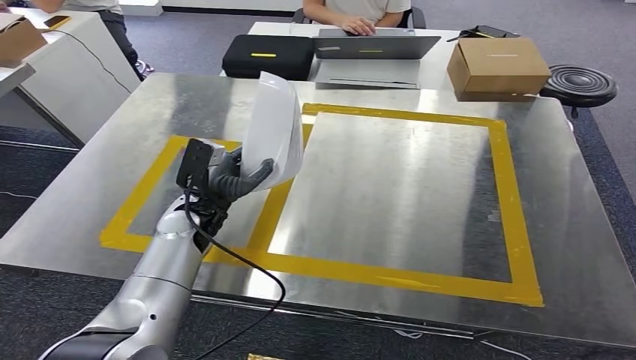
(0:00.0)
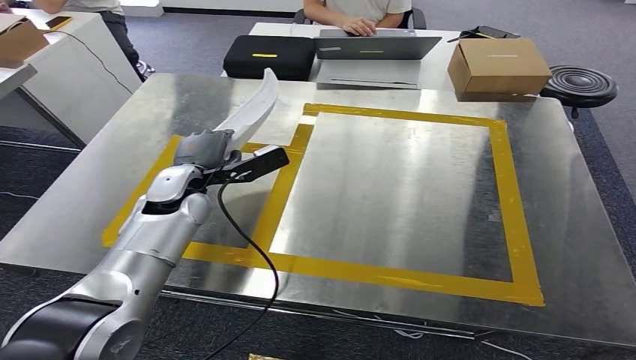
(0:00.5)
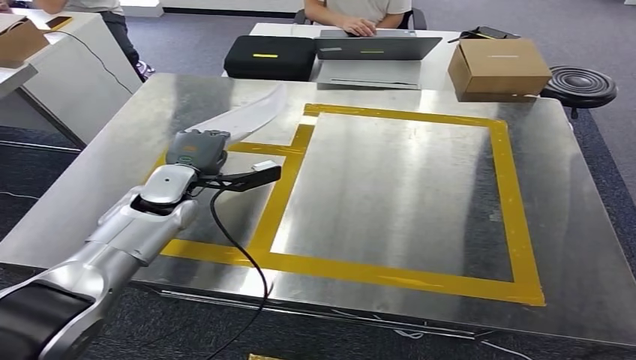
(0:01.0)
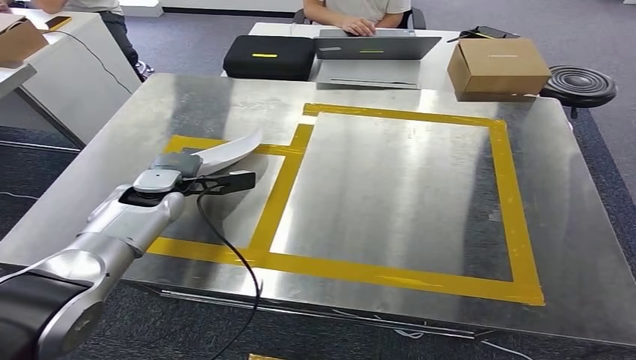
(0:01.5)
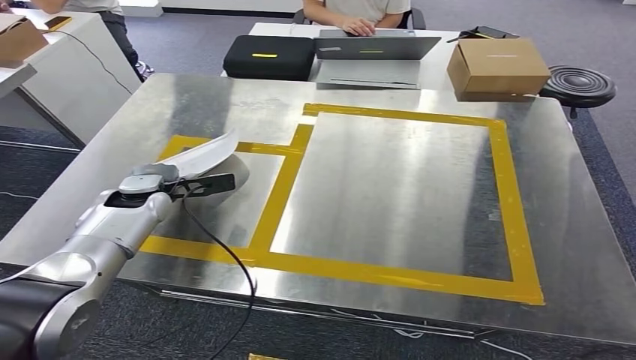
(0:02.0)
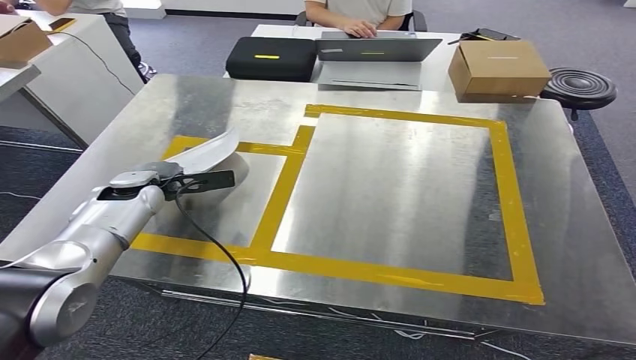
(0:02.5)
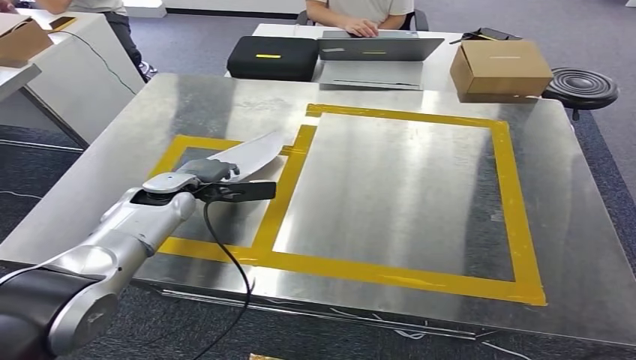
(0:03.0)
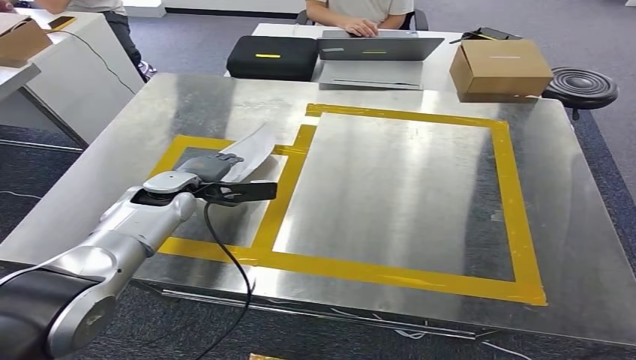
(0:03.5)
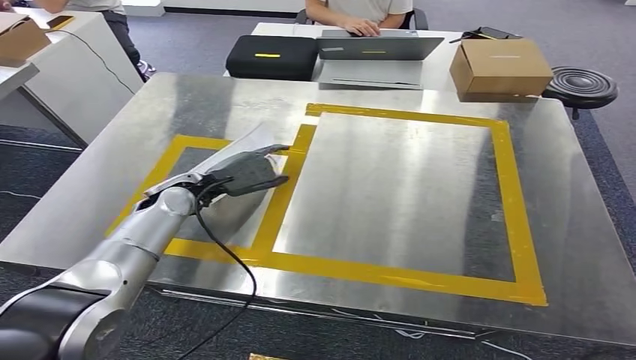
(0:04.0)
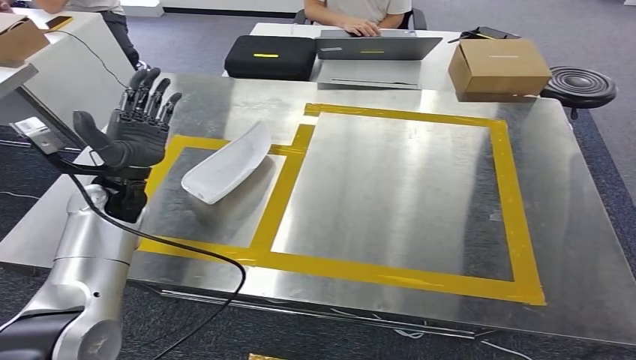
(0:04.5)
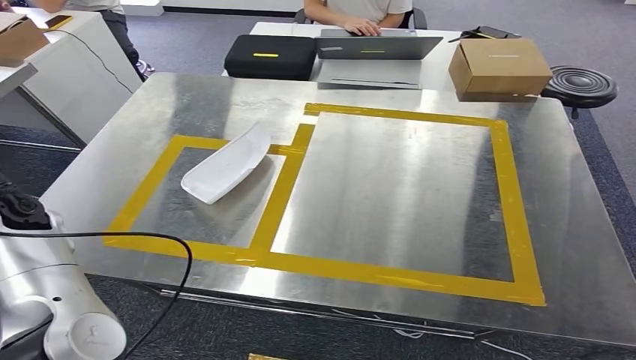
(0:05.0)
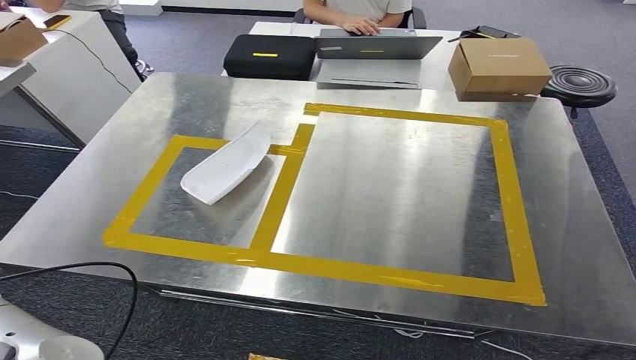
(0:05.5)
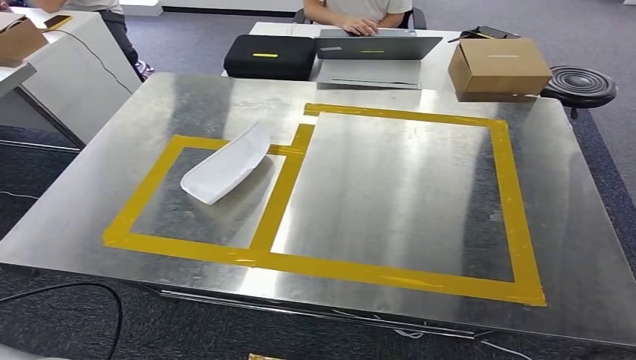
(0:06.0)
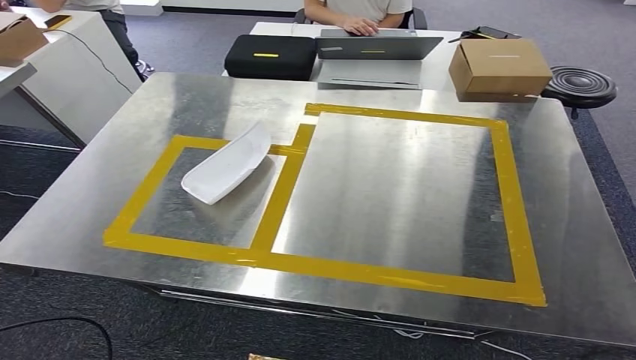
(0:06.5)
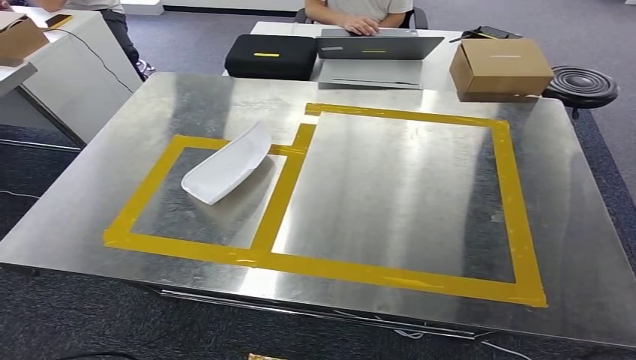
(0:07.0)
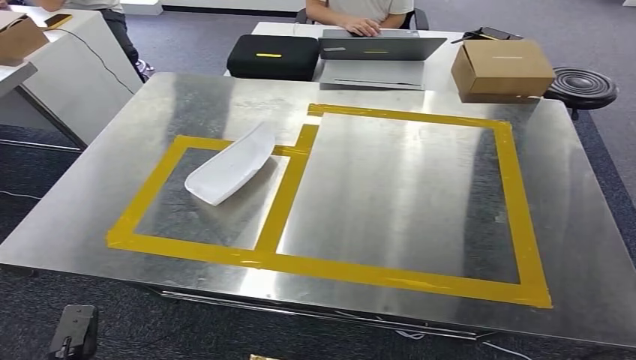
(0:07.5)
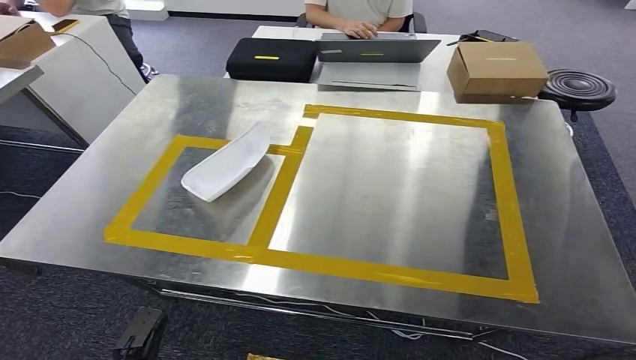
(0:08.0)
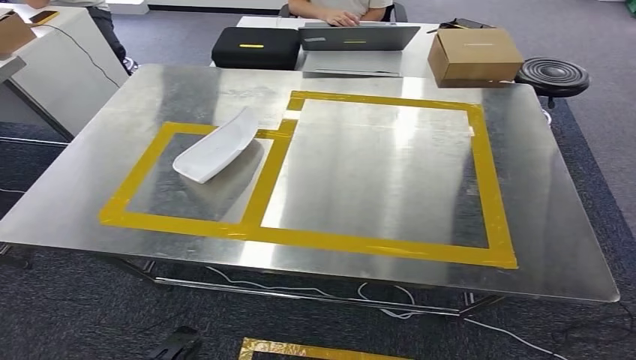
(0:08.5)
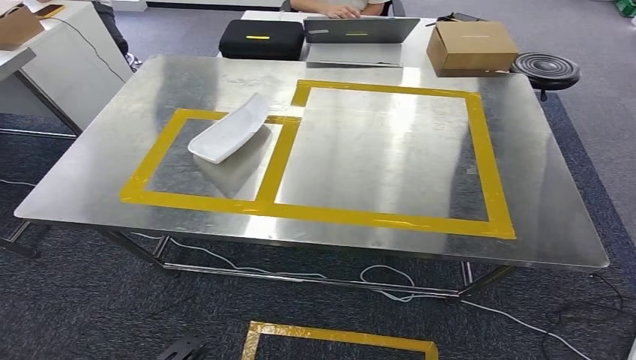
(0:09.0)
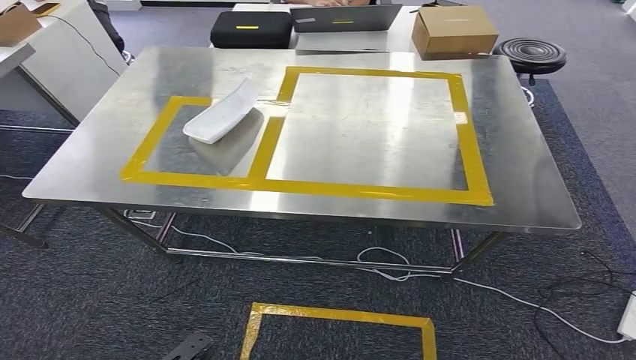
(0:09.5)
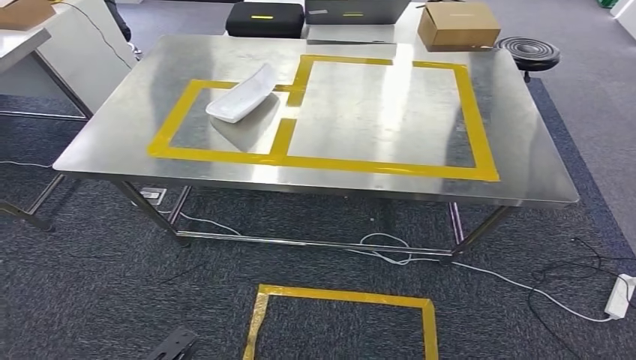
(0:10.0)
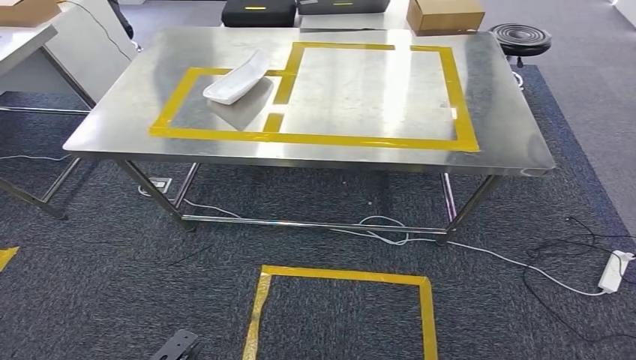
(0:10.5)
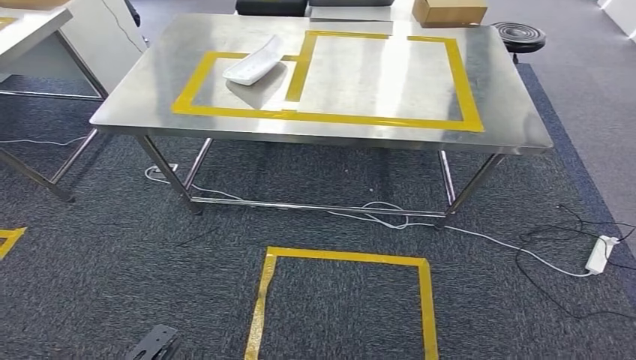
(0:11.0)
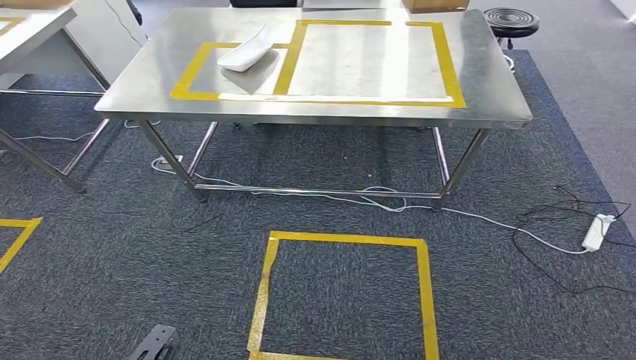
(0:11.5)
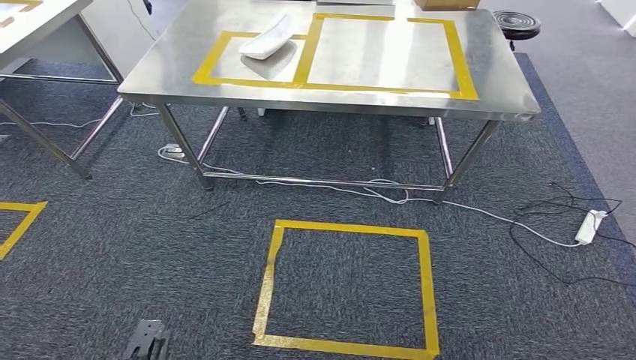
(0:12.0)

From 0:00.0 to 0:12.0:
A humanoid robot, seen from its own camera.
Step, from 0:00.0 to 0:04.5: Insert the small component into the corresponding slot on the workbench.
From 0:00.0 to 0:02.0: The left hand is displaced to the left and forward by some 10 cm.
From 0:02.0 to 0:04.0: The left hand travels to the right by some 5 cm.
From 0:04.0 to 0:06.0: The left hand moves backward and to the left, approximately 40 cm.
From 0:06.0 to 0:08.0: The left hand moves downward and to the right, some 35 cm.

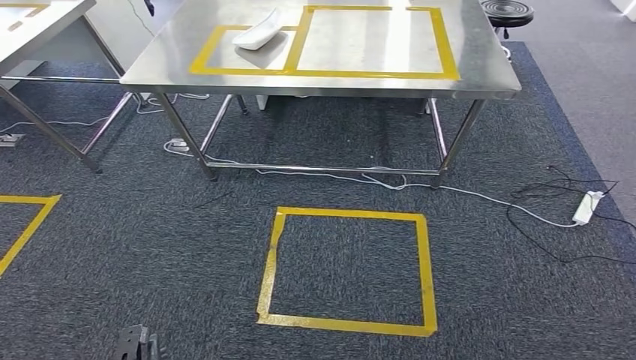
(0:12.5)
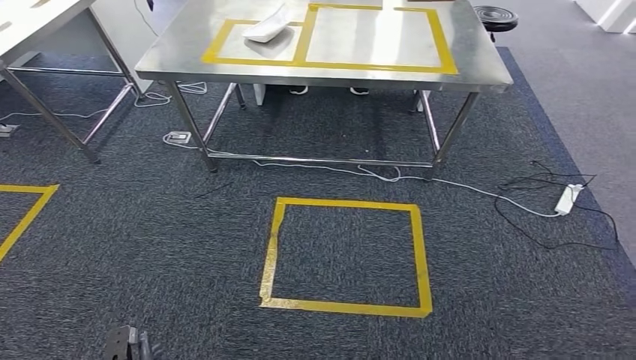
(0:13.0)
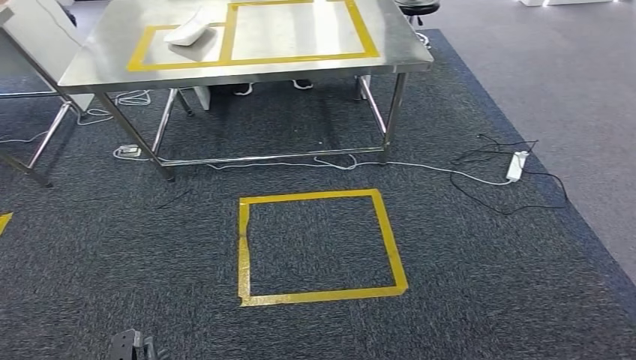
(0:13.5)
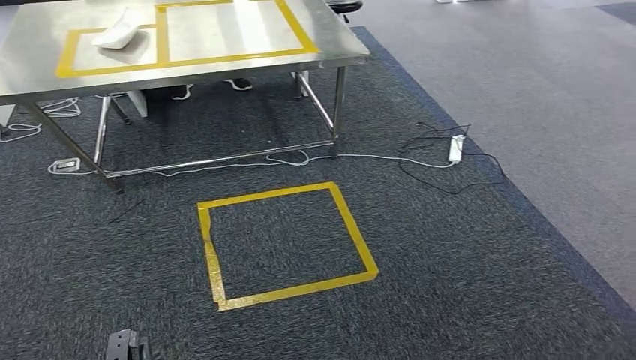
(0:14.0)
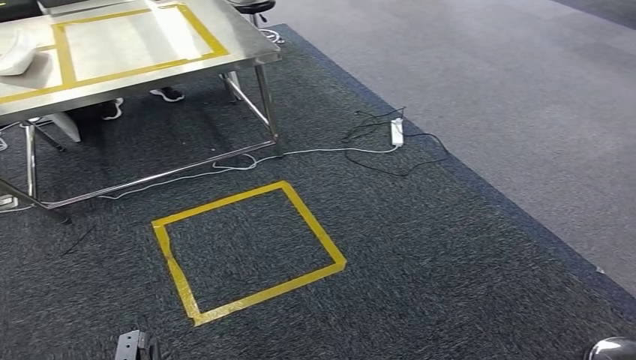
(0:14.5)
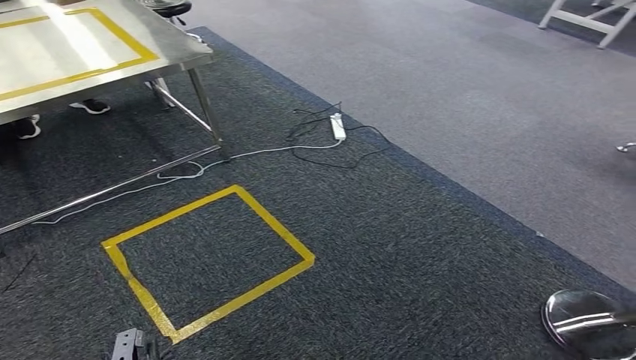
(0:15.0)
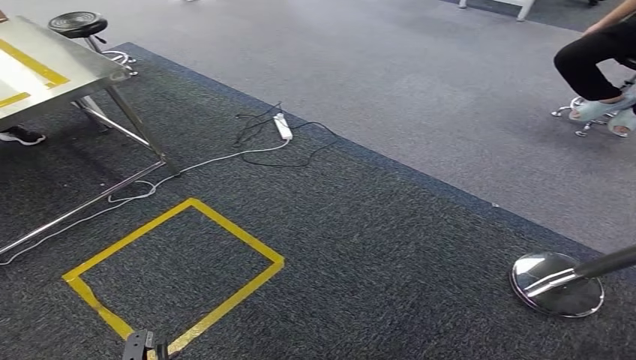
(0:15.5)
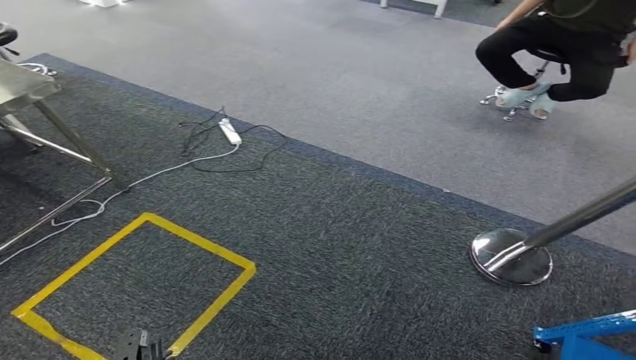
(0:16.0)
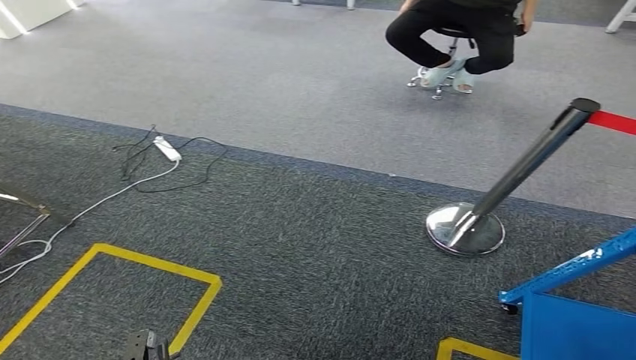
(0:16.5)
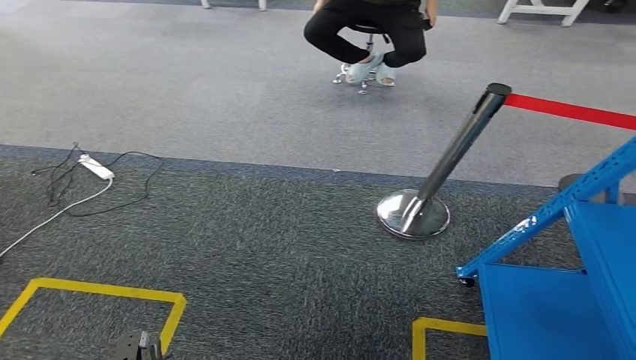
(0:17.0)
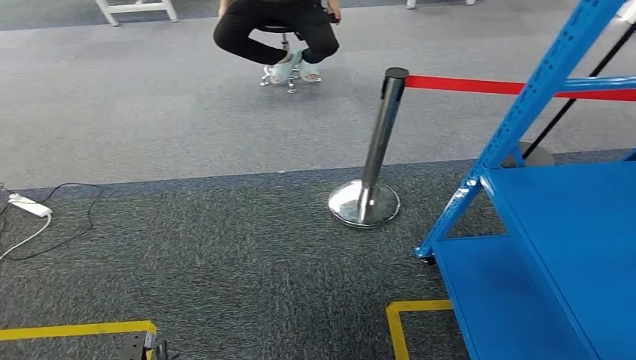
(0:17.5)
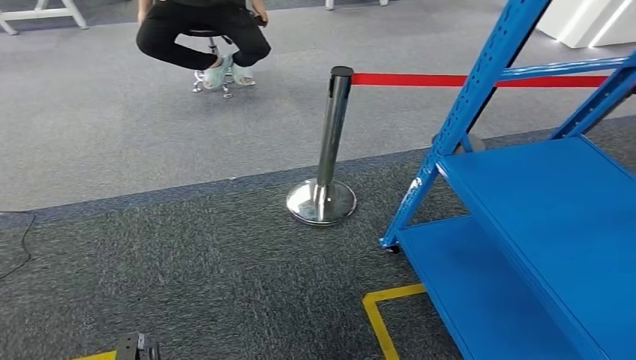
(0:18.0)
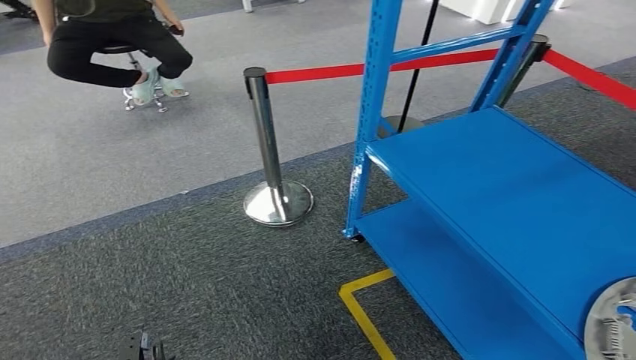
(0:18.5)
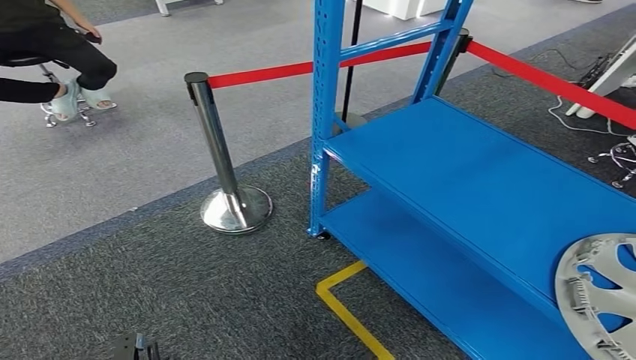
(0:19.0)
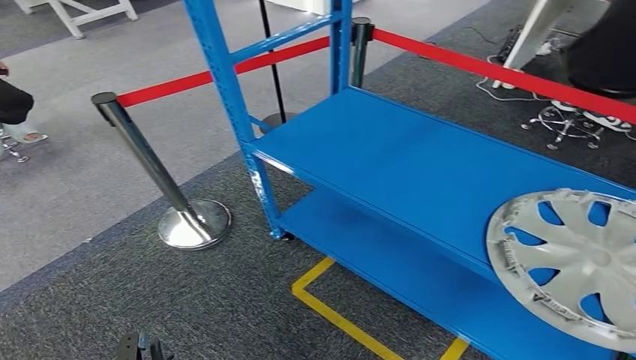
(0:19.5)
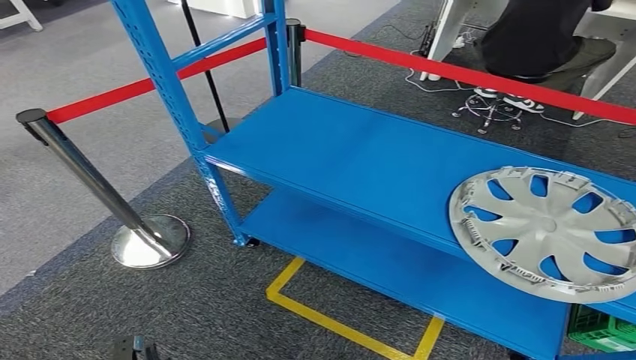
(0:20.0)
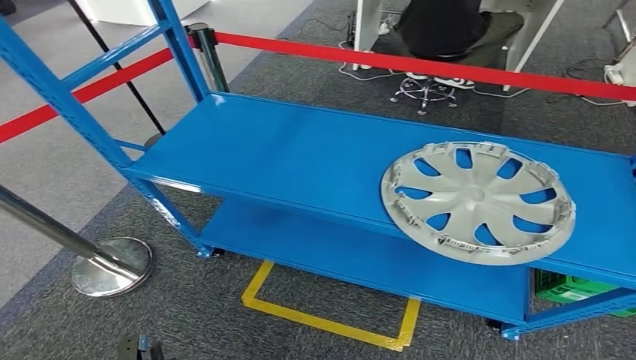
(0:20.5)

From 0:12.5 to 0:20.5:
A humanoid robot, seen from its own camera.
Step, from 0:12.5 to 0:20.5: Move to the initial position at the workbench.
